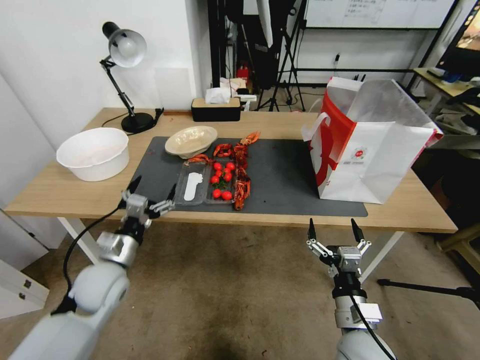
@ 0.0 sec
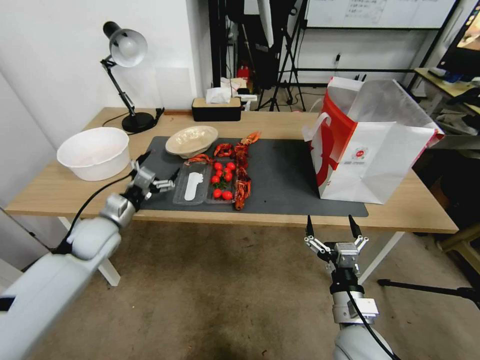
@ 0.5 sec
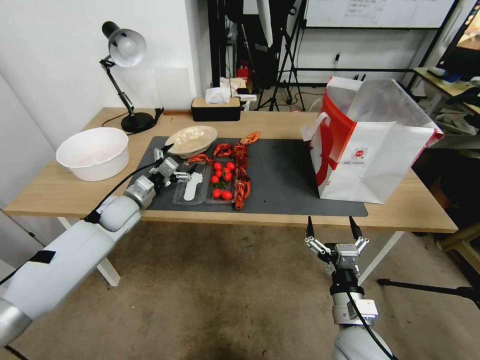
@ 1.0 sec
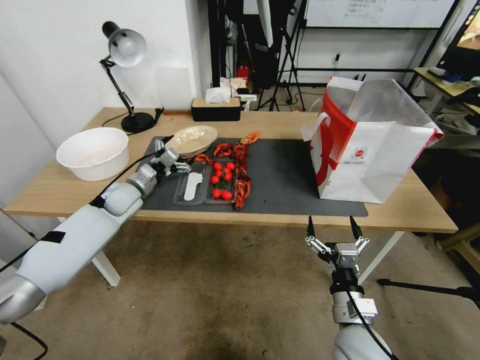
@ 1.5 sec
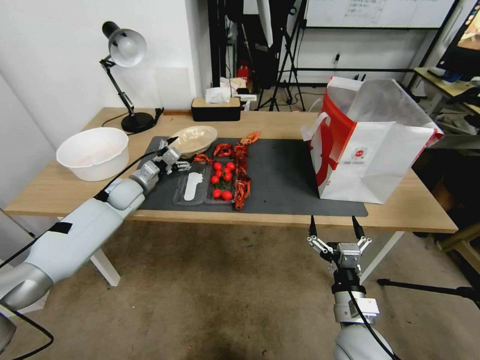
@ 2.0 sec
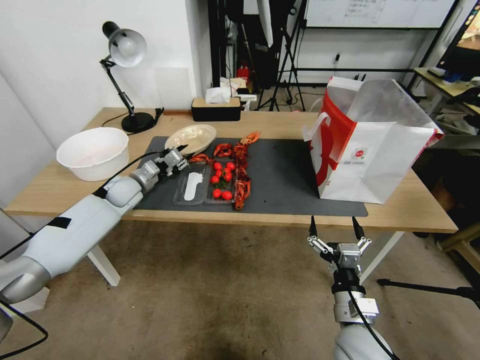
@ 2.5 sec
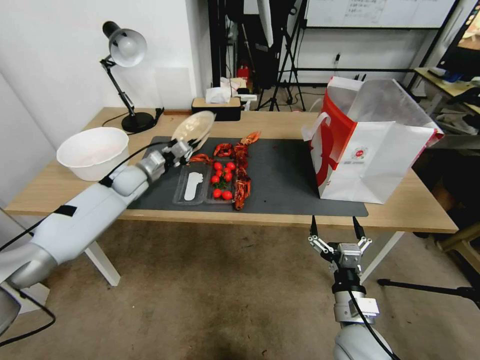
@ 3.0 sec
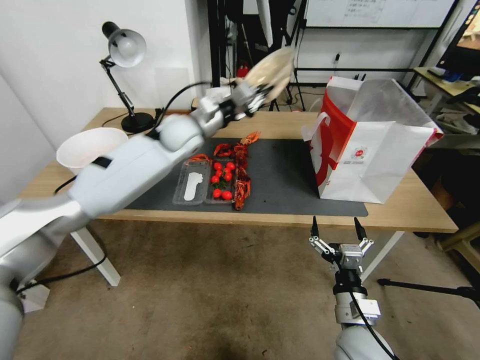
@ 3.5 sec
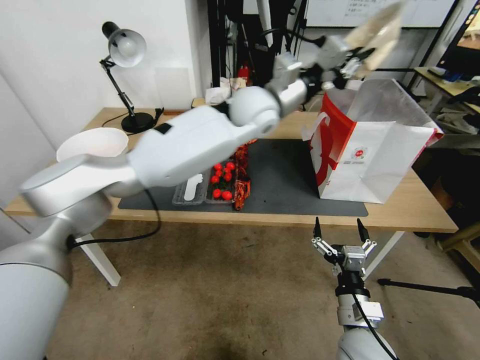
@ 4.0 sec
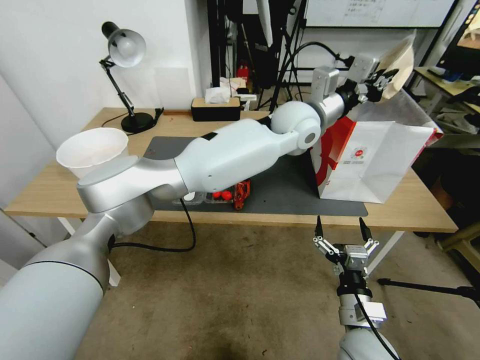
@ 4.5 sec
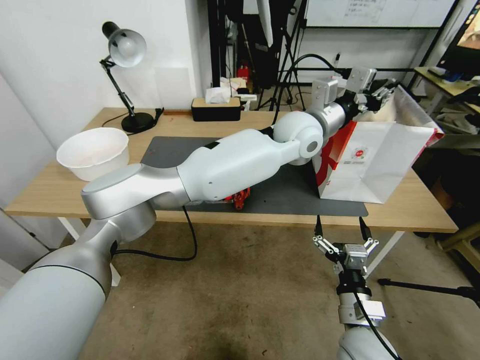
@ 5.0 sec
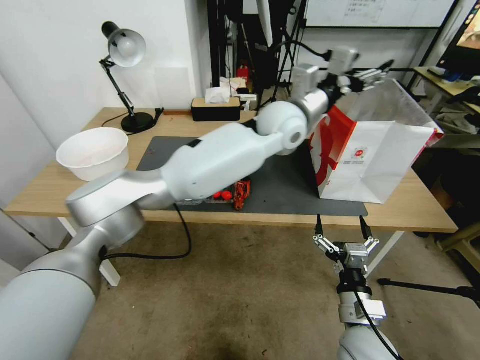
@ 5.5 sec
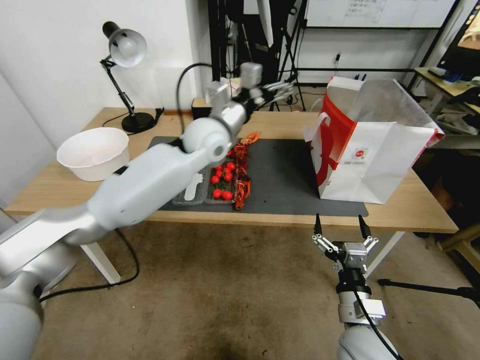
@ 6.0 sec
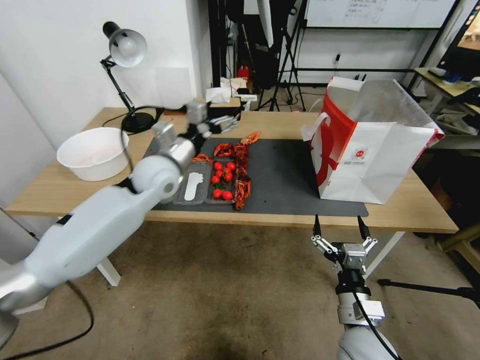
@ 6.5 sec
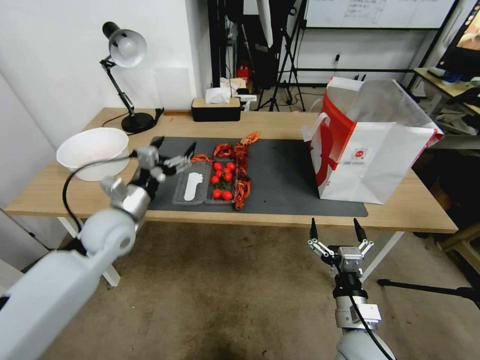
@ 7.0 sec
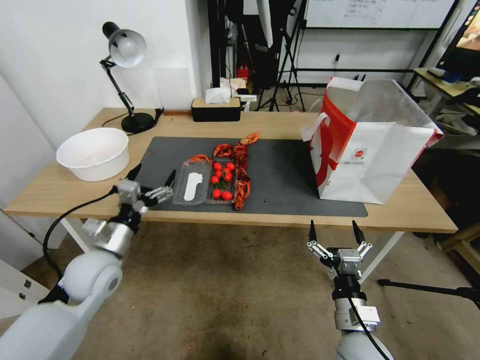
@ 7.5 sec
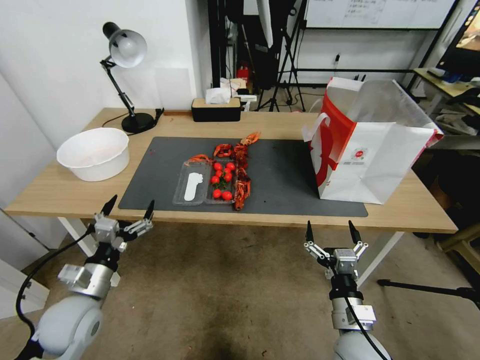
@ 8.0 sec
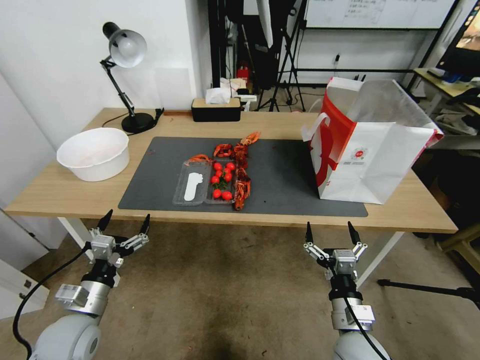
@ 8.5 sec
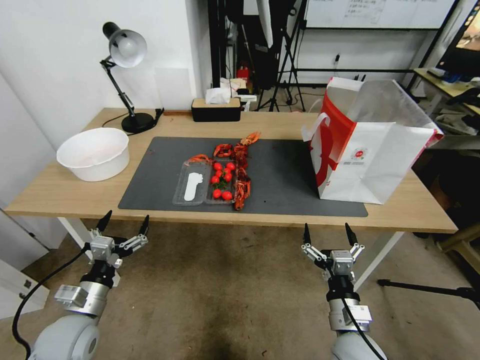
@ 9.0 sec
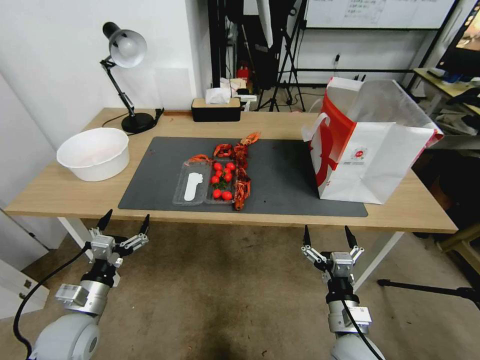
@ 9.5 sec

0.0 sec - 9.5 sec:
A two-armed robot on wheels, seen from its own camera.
0.0 sec - 2.0 sec: The left gripper heads forward, covering some 25 cm.
2.0 sec - 4.0 sec: The left gripper moves to the right and upward, about 40 cm, and closes up.
4.0 sec - 5.5 sec: The left gripper reaches some 10 cm to the right, then returns, and opens up.
5.5 sec - 7.5 sec: The left gripper goes about 40 cm to the left, downward and backward.
7.5 sec - 9.5 sec: The left gripper moves backward, downward and to the left, roughly 15 cm.
